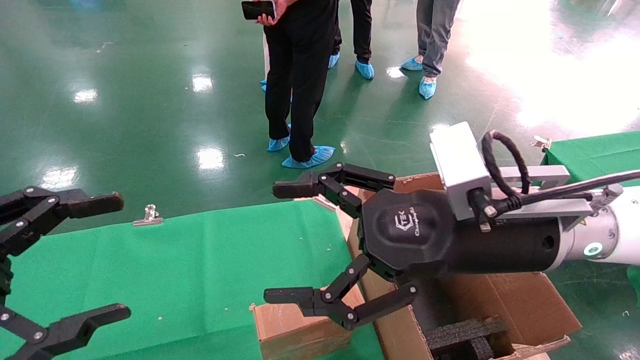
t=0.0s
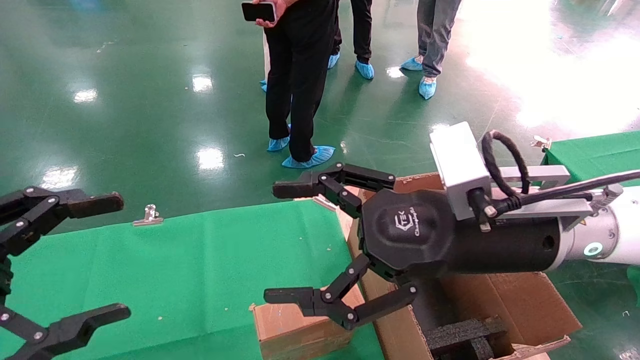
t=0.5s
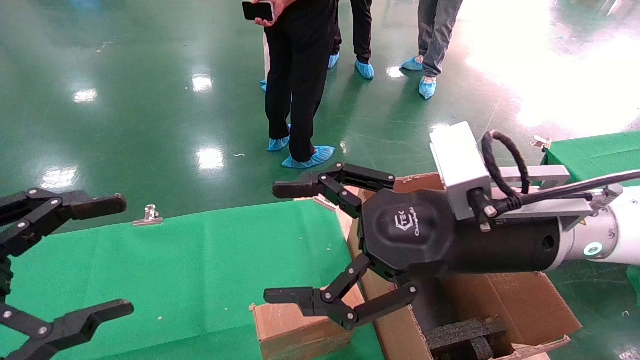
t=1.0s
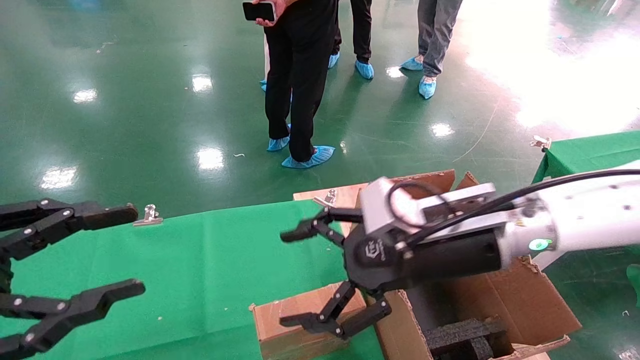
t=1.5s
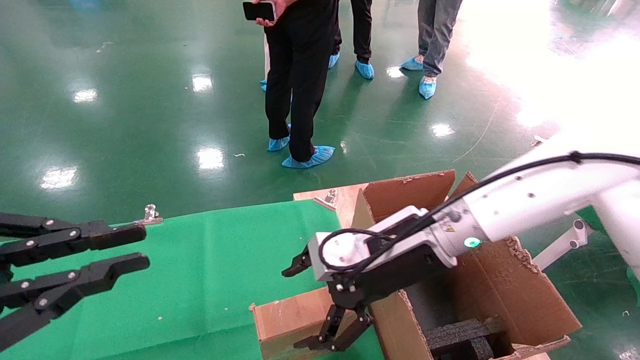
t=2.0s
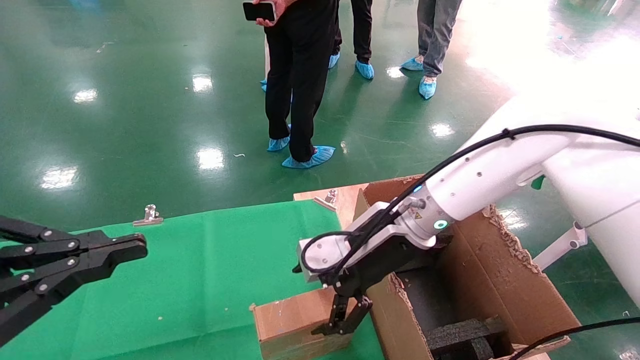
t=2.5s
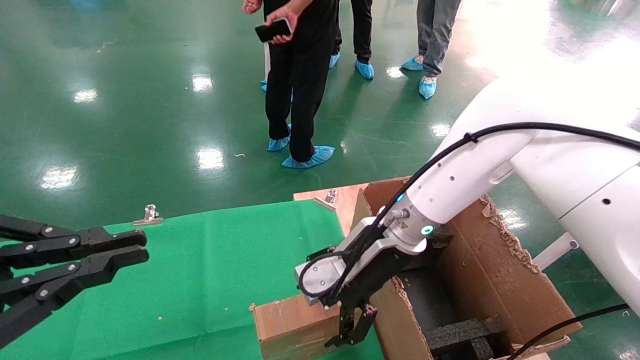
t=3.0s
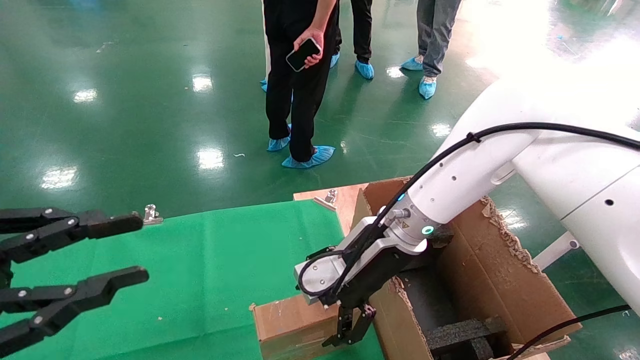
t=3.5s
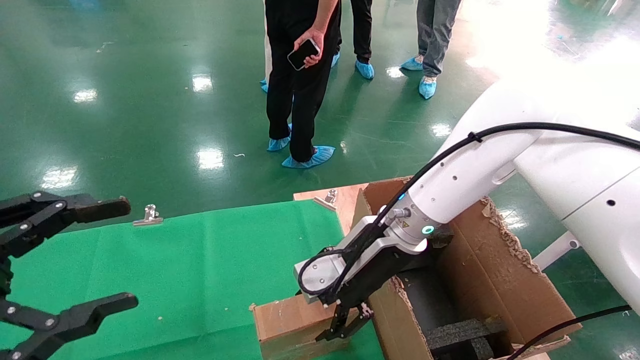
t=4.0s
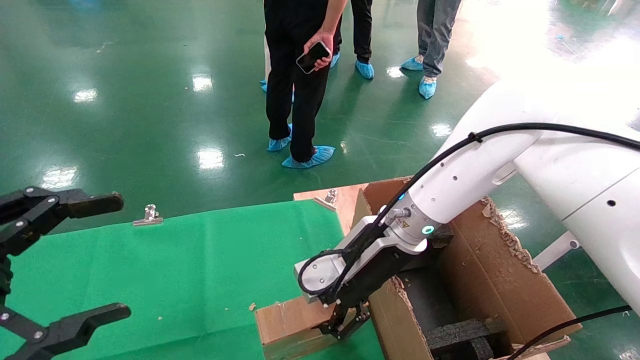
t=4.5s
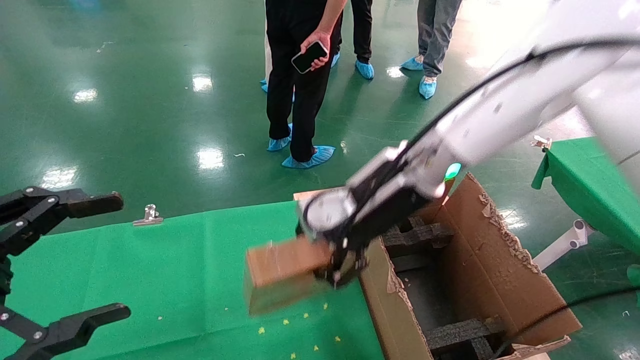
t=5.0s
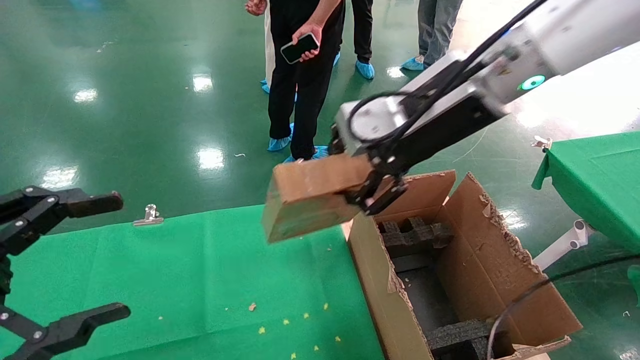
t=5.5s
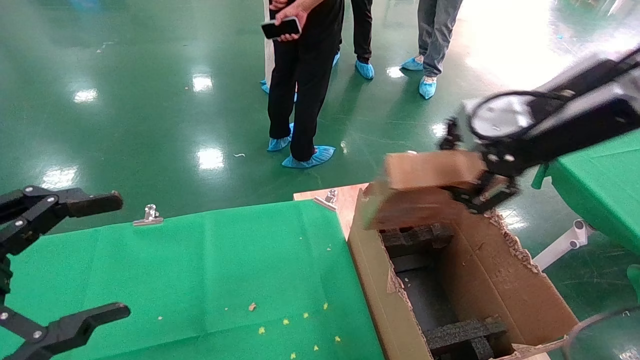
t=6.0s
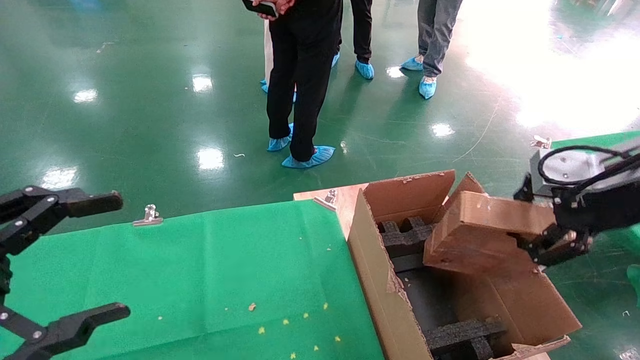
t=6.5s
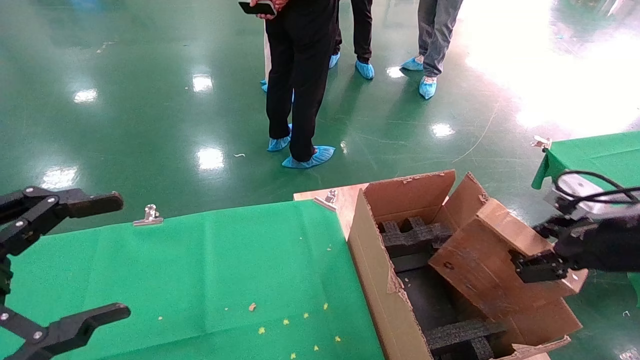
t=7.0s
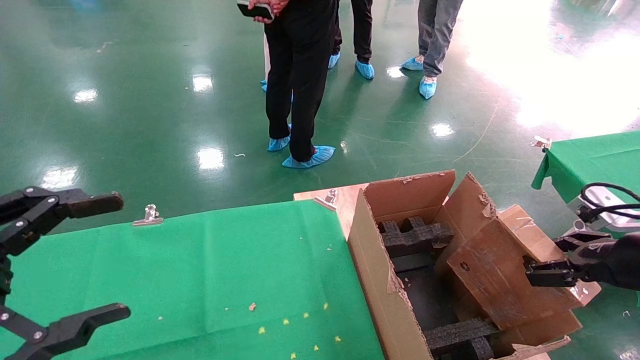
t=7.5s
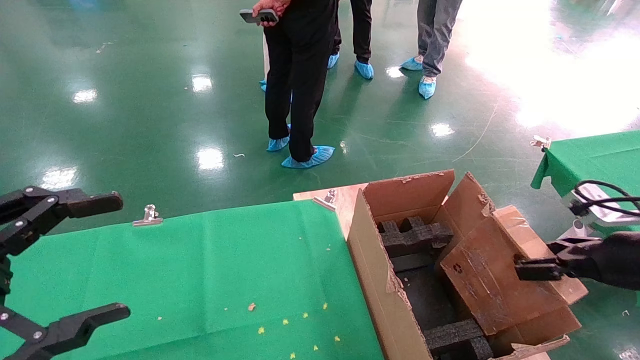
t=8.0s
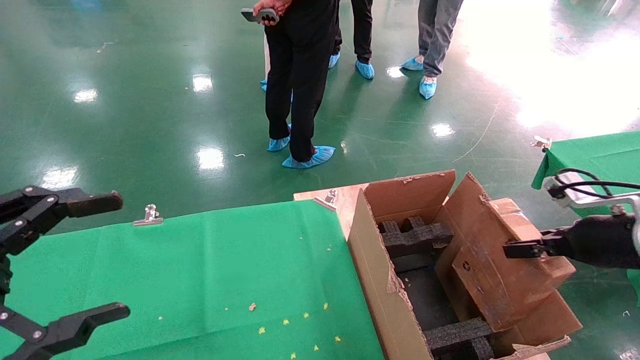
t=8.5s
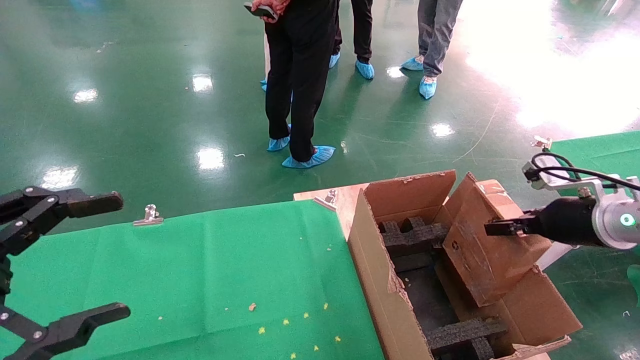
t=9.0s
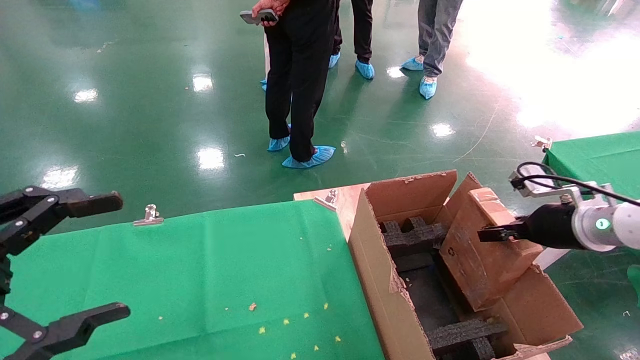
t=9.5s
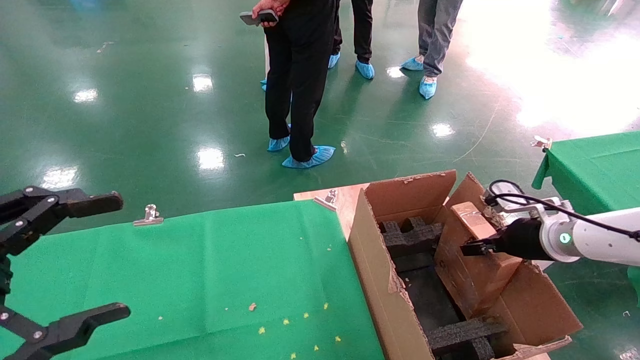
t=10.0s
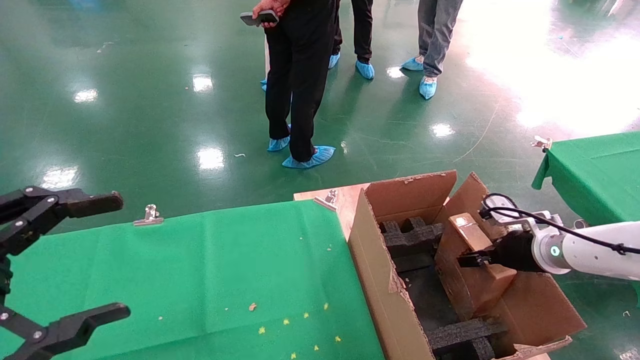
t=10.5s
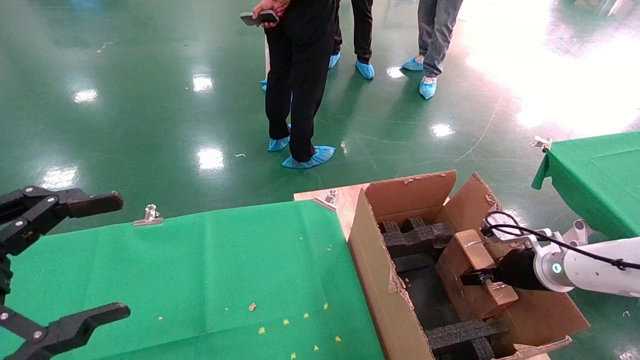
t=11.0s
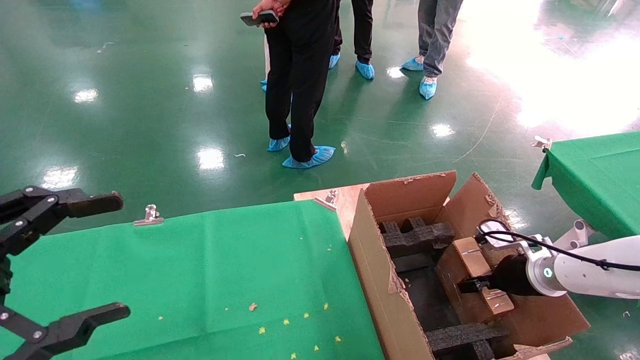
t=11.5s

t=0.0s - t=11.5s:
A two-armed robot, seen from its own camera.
Task of the whole recording: using a robotic arm to pick up a cardboard box and palace it the carton.
Step, t=1.5s - t=4.0s: Pick up the mouse and the power cord paper box.
t=0.0s - t=2.0s: The left gripper closes up; the right gripper travels forward and downward by roughly 10 cm.
t=2.0s - t=4.0s: The left gripper opens; the right gripper ends up approximately 5 cm from where it was, and closes up.
t=4.0s - t=6.0s: The right gripper moves upward, to the right and backward, approximately 25 cm, and closes its fingers.
t=6.0s - t=7.5s: The right gripper travels downward and to the right by about 20 cm.
t=7.5s - t=9.5s: The right gripper heads forward, covering roughly 15 cm.
t=9.5s - t=11.5s: The right gripper moves downward, roughly 10 cm.

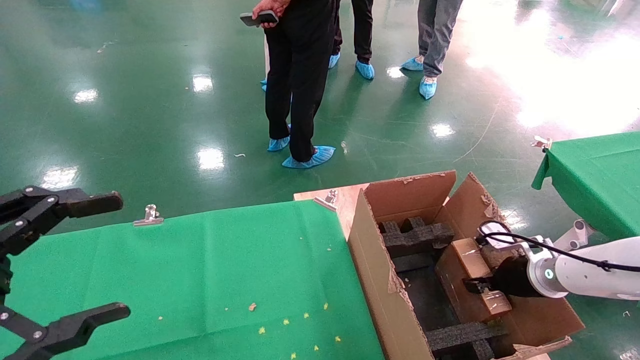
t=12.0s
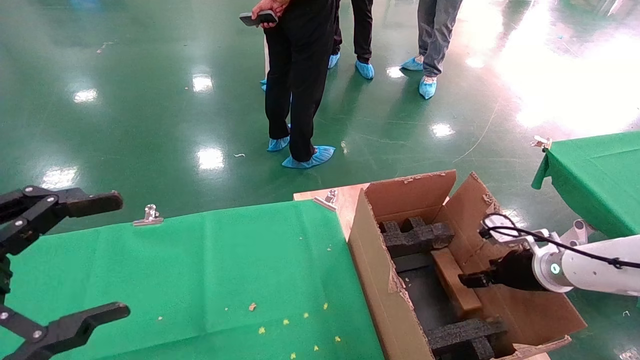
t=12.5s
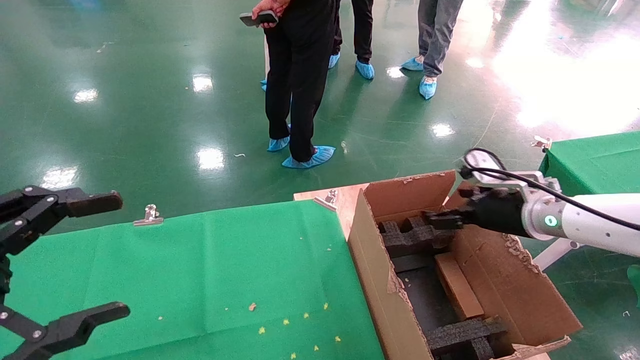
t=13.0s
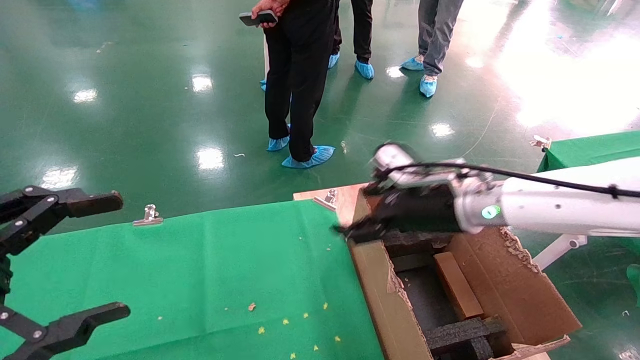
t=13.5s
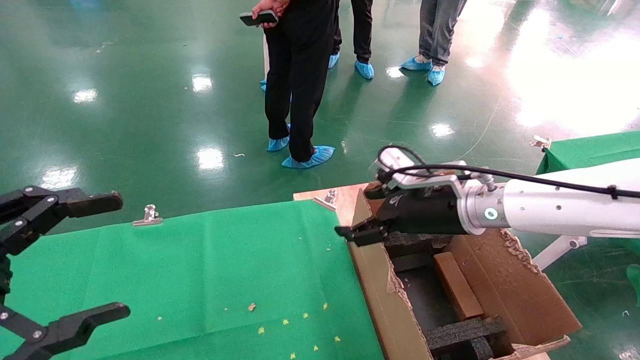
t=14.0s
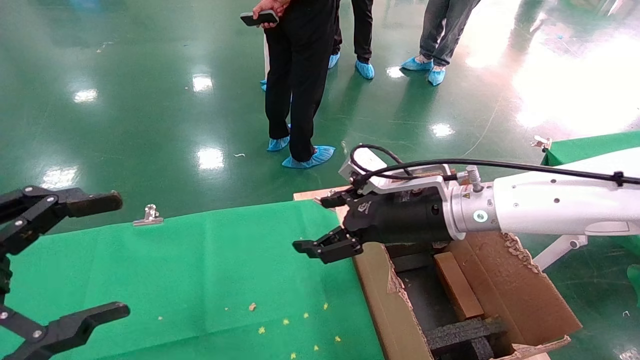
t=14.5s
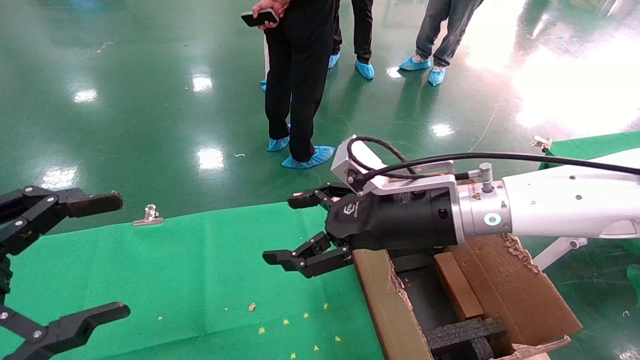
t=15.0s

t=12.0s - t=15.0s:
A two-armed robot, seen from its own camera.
Task of the whole recording: using a robotic arm to pick up a cardboard box and palace it the carton.
t=12.0s - t=13.5s: The right gripper moves to the left and upward, roughly 25 cm, and opens.
t=13.5s - t=15.0s: The right gripper moves to the left, about 5 cm.

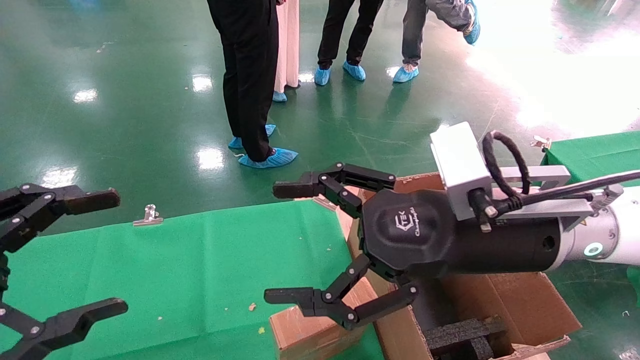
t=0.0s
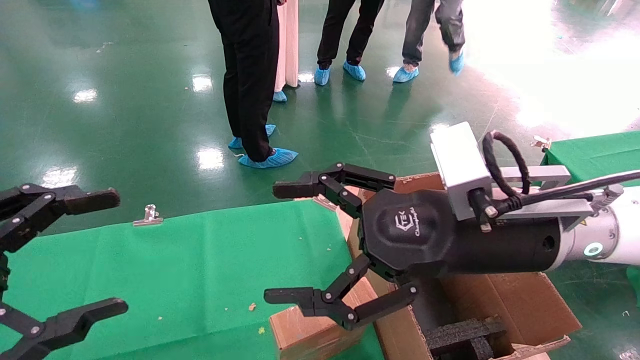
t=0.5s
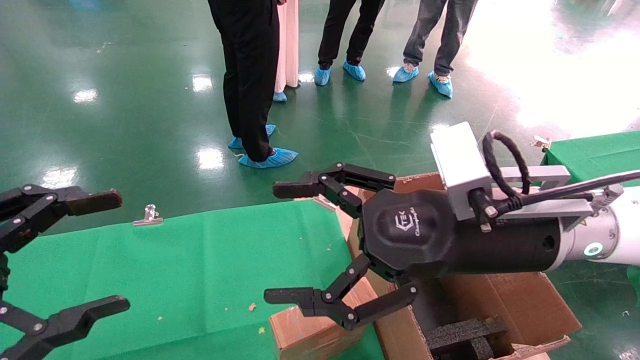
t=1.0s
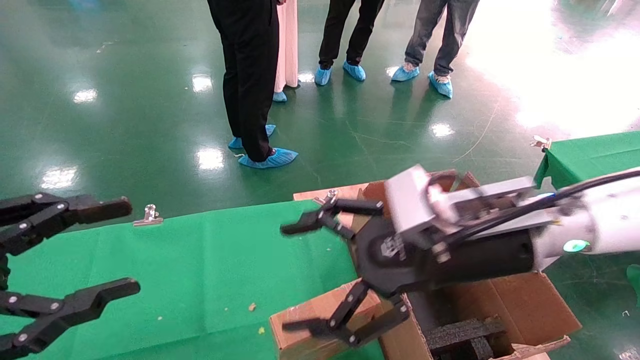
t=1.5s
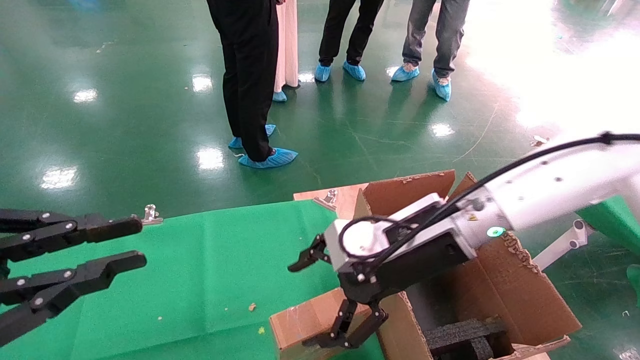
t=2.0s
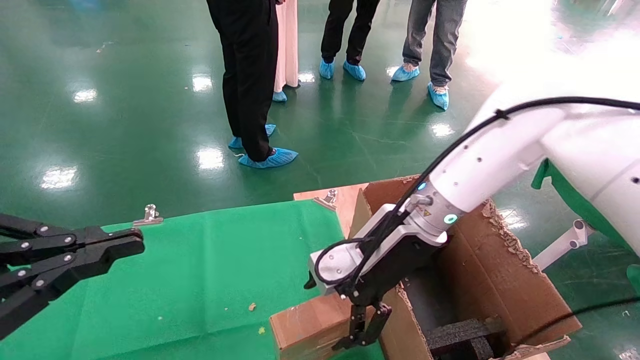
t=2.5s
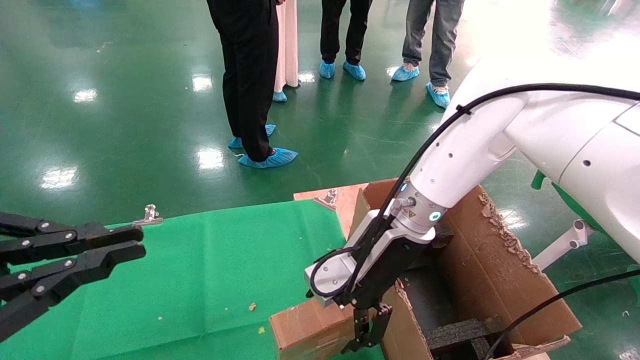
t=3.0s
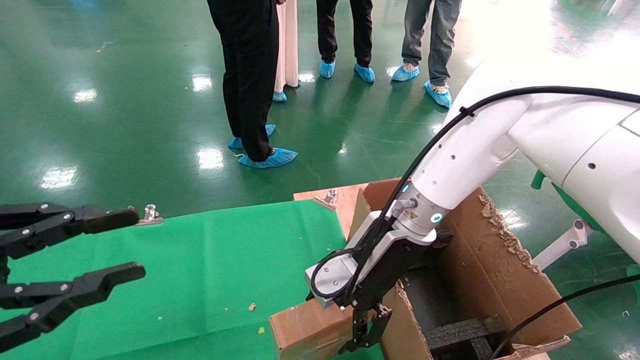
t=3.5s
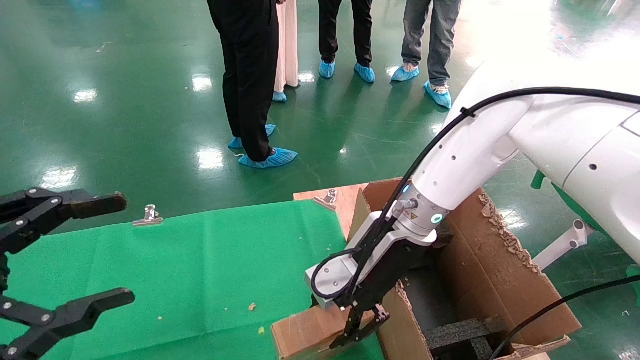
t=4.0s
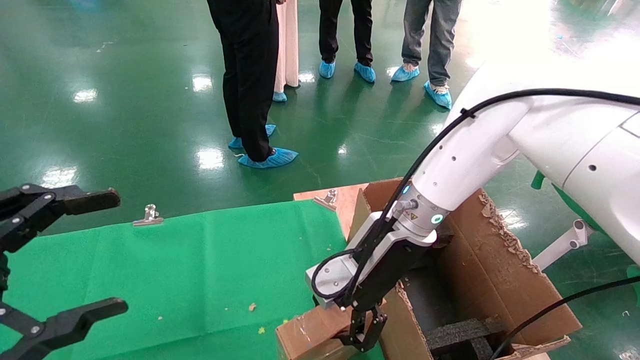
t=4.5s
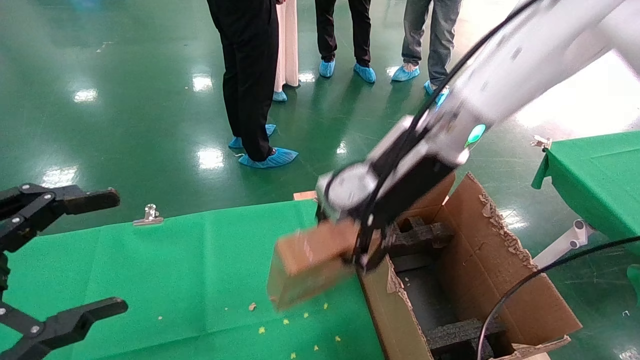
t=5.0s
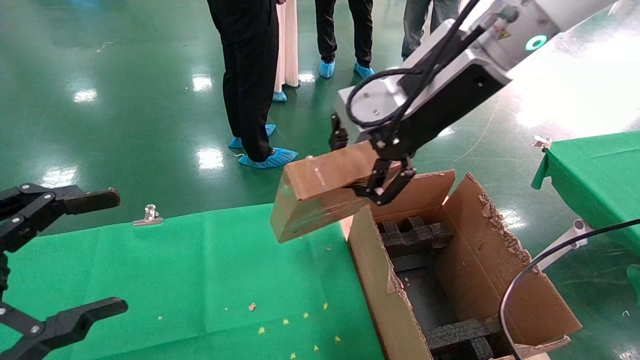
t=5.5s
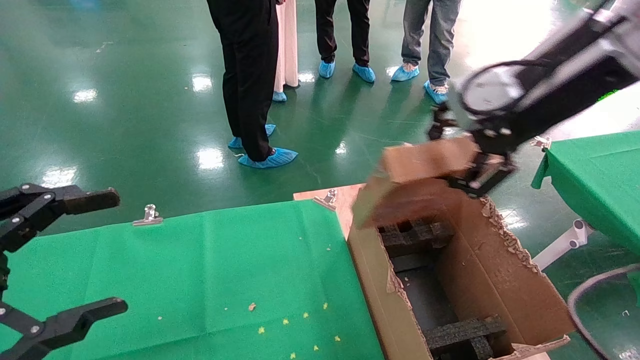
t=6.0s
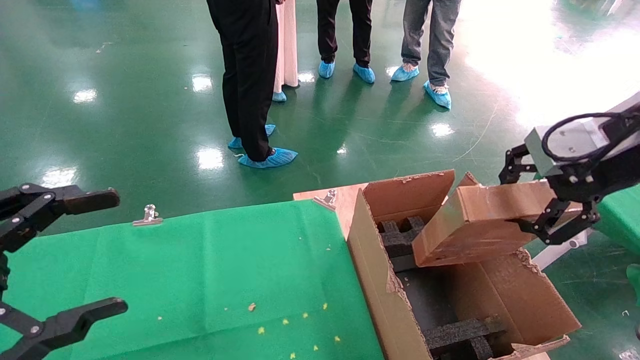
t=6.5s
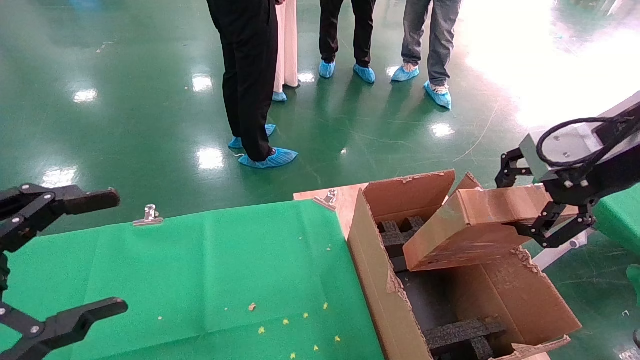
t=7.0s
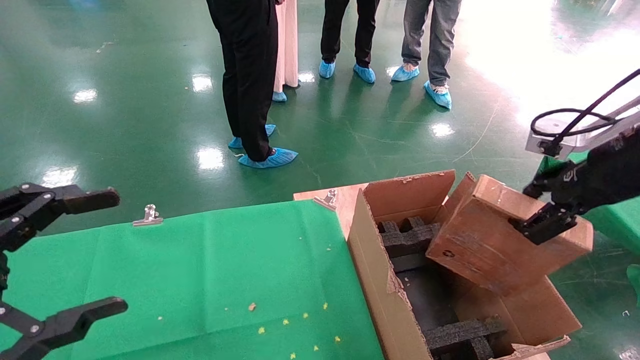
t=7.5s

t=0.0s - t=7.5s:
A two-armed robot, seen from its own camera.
Task of the whole recording: using a robotic arm to pick up a cardboard box and palace it the carton.
Step, t=1.5s - t=4.0s: Pick up the mouse and the power cord paper box.
t=0.0s - t=2.0s: The right gripper moves forward, roughly 10 cm. The left gripper closes up.
t=2.0s - t=4.0s: The right gripper shifts by approximately 5 cm, and closes up.
t=4.0s - t=5.5s: The right gripper goes roughly 20 cm upward, and closes.
t=5.5s - t=7.5s: The right gripper is displaced to the right by approximately 25 cm.
